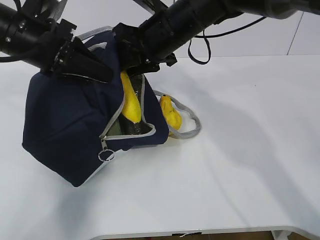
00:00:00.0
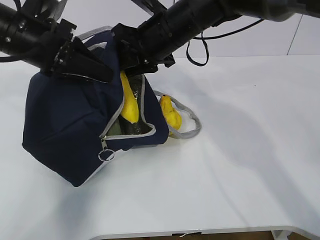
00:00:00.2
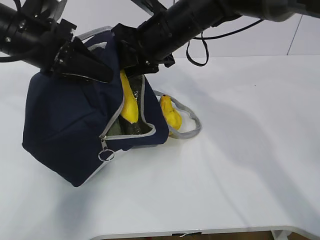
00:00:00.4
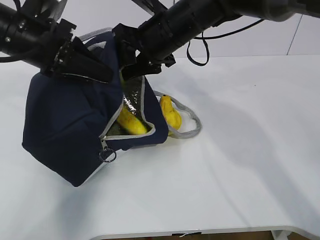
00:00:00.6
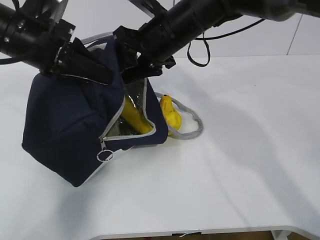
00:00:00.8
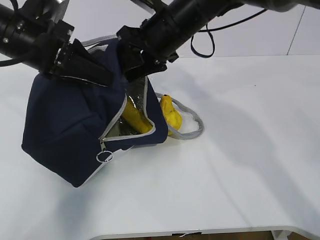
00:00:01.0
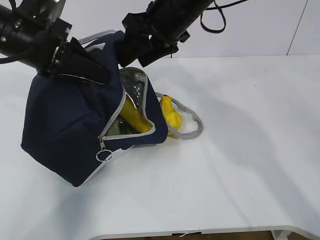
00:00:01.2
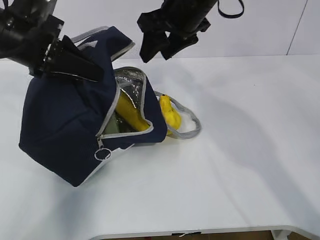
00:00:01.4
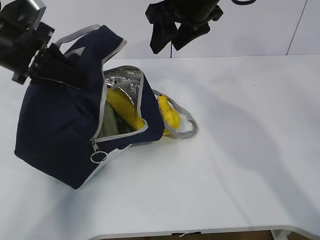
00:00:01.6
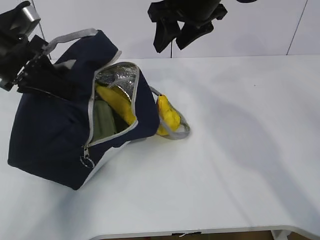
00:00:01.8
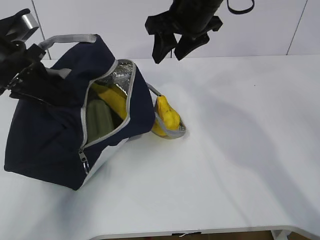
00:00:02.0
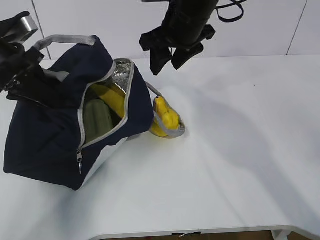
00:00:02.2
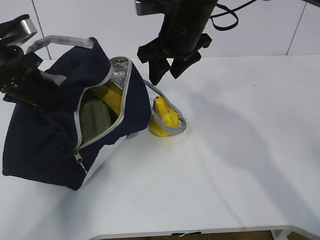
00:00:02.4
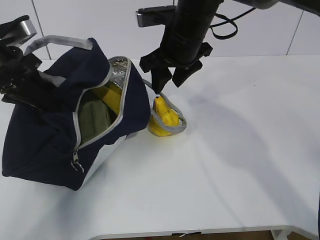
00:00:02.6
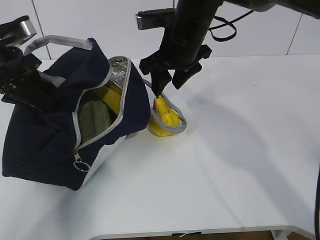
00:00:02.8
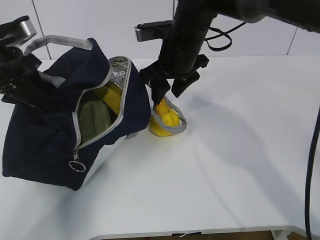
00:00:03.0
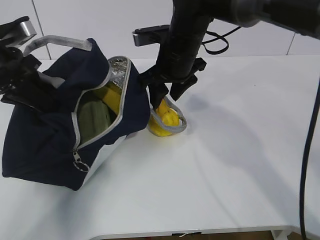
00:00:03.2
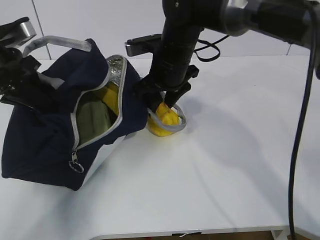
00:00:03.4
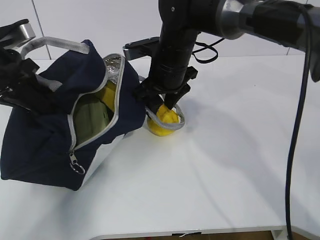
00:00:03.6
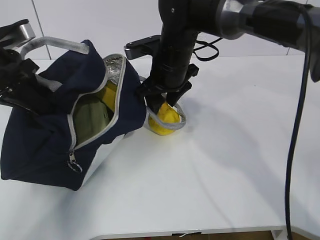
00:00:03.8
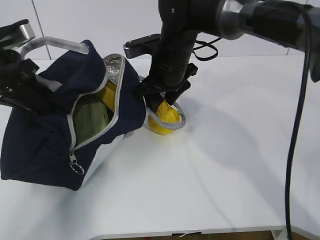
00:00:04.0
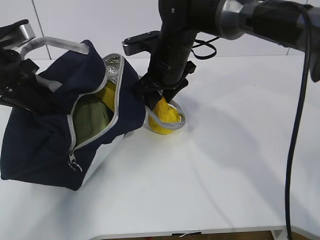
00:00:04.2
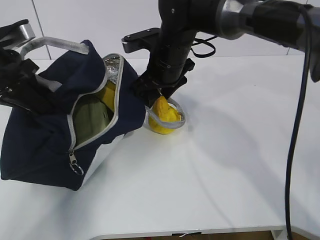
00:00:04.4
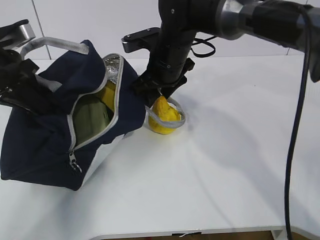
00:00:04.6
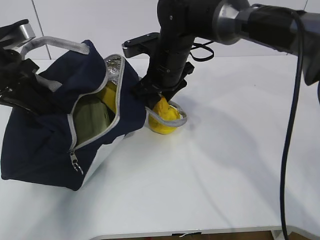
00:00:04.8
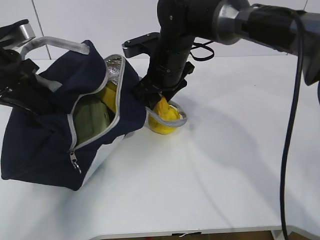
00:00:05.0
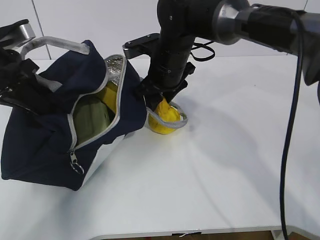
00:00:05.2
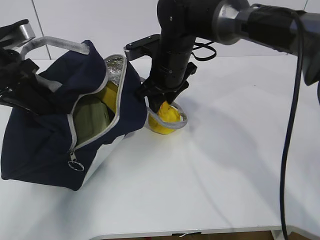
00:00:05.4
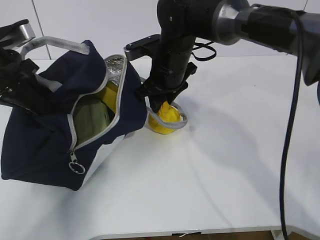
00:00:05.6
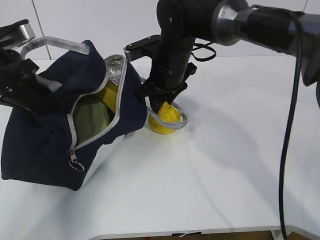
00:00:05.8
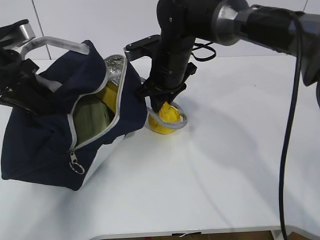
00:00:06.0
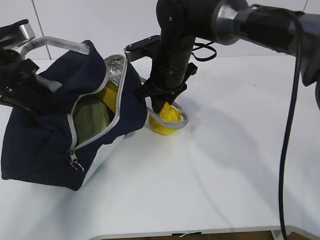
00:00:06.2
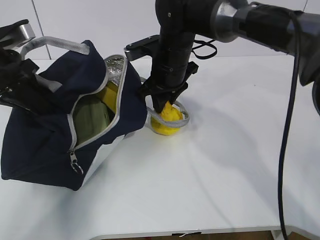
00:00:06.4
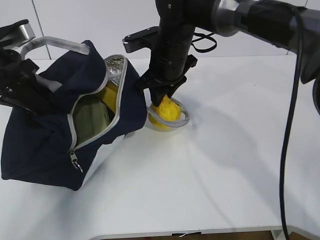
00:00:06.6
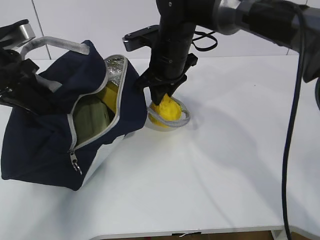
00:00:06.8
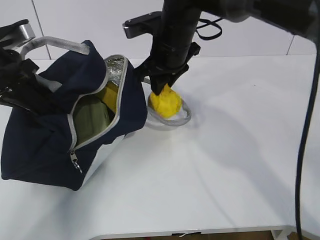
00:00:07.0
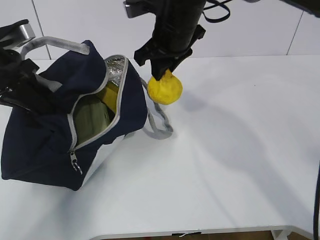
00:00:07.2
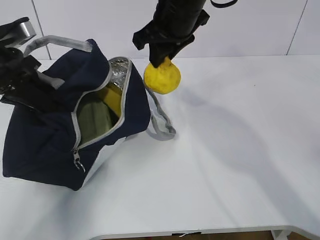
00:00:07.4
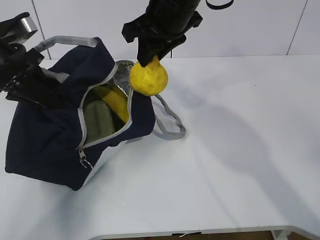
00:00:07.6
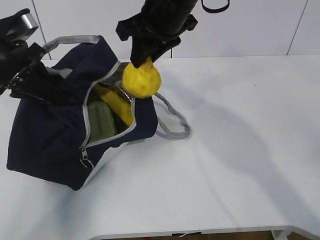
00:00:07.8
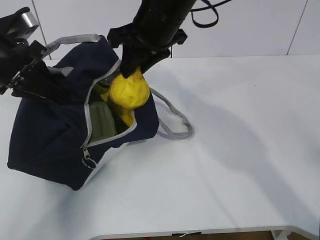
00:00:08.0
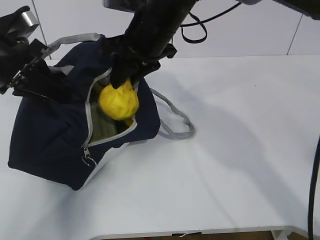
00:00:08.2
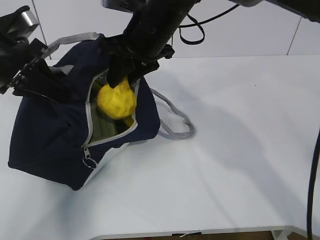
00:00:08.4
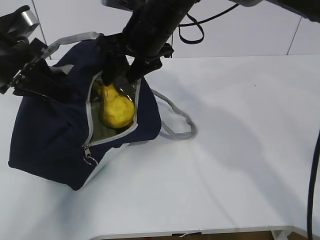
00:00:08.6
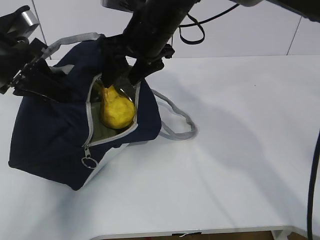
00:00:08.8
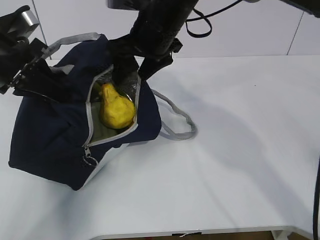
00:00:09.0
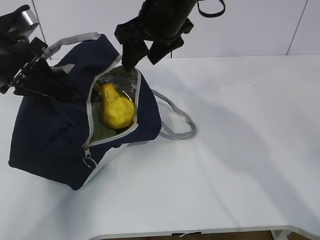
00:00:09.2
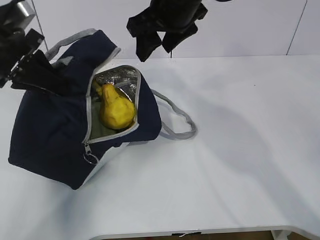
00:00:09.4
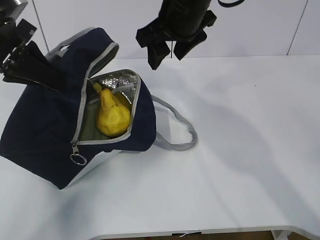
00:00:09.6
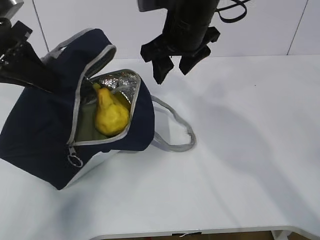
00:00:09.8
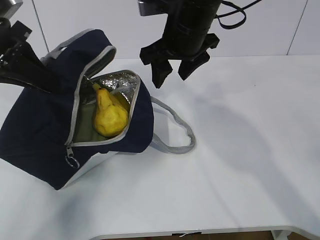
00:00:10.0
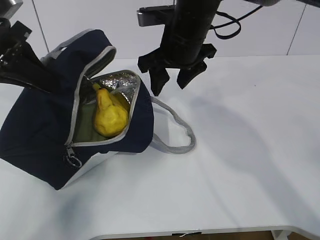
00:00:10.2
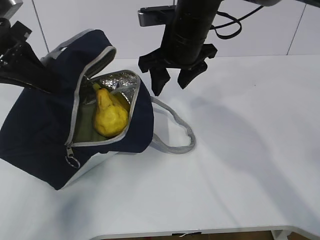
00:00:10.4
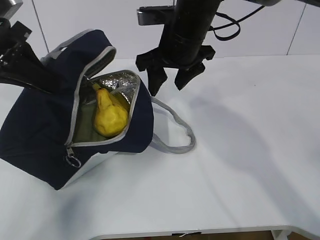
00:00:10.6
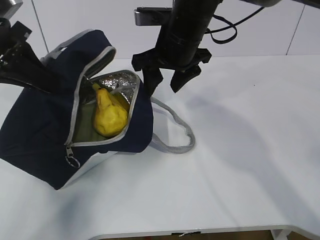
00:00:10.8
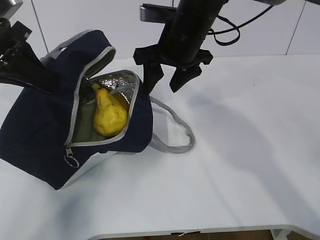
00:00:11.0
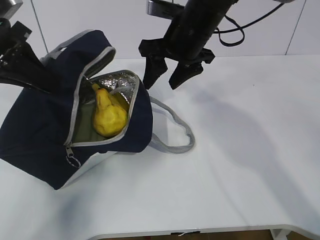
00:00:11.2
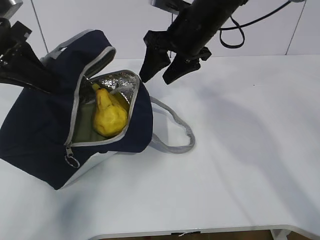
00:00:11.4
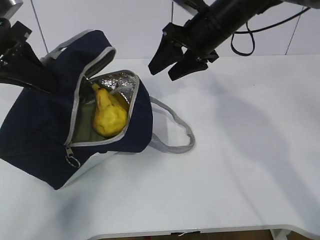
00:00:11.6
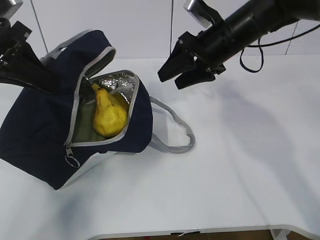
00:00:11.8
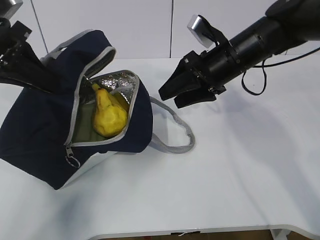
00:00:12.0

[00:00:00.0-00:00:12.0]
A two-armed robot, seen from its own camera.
Step, 00:00:01.2 to 00:00:05.6: Grasp the pear with the right gripper.
Step, 00:00:05.8 to 00:00:08.4: Place the pear into the package with the right gripper.
00:00:00.0 to 00:00:01.6: The right gripper heads upward, covering approximately 5 cm, and opens up.
00:00:01.6 to 00:00:03.0: The right gripper shifts approximately 10 cm downward.
00:00:03.0 to 00:00:06.0: There are only small adjustments of the grippers.
00:00:06.0 to 00:00:07.6: The right gripper goes some 10 cm upward.
00:00:07.6 to 00:00:09.0: The right gripper opens up.
00:00:10.4 to 00:00:12.0: The right gripper travels to the right by about 10 cm.

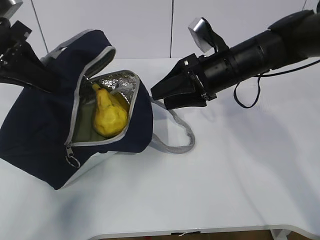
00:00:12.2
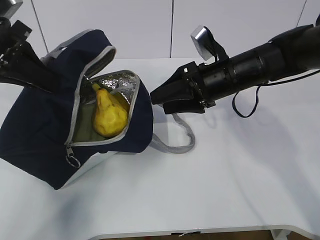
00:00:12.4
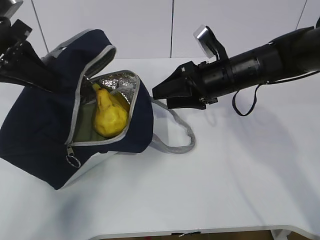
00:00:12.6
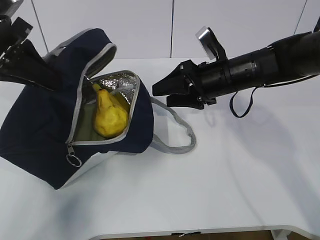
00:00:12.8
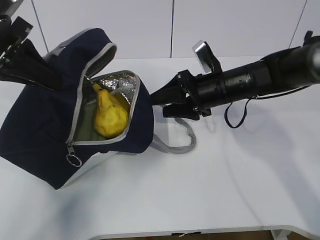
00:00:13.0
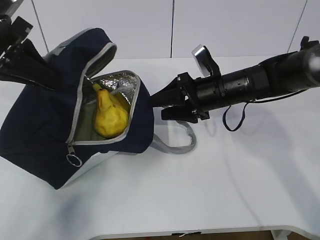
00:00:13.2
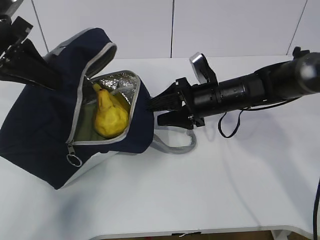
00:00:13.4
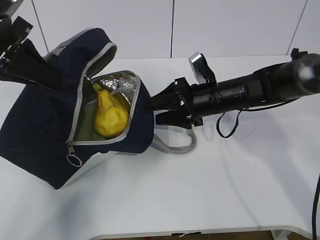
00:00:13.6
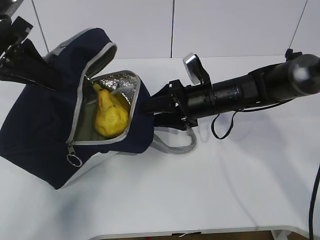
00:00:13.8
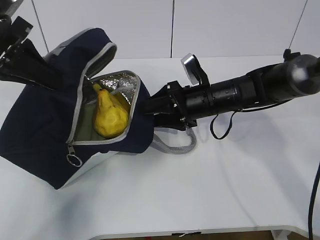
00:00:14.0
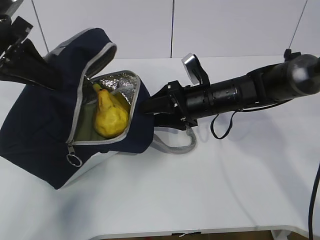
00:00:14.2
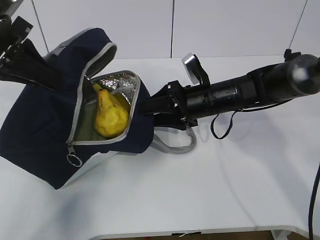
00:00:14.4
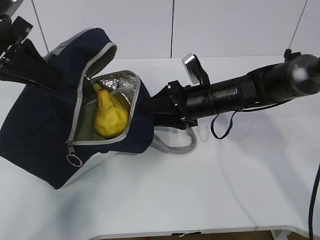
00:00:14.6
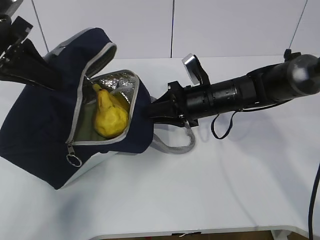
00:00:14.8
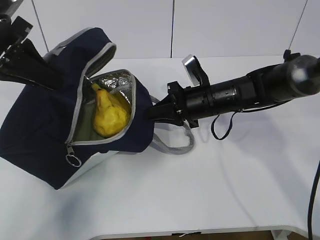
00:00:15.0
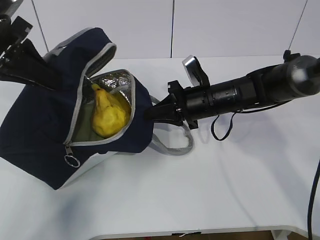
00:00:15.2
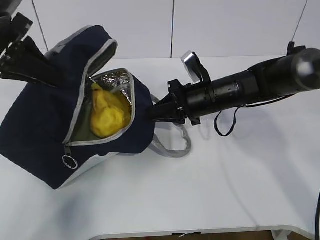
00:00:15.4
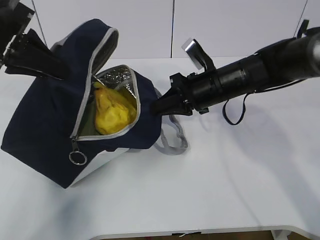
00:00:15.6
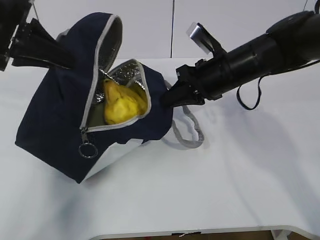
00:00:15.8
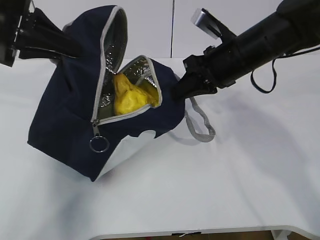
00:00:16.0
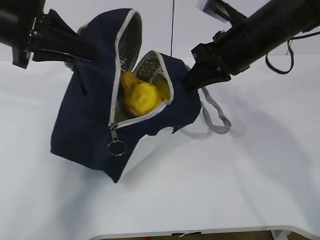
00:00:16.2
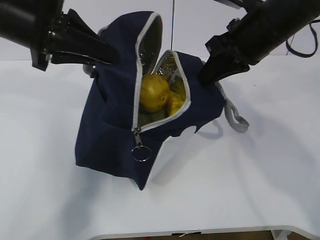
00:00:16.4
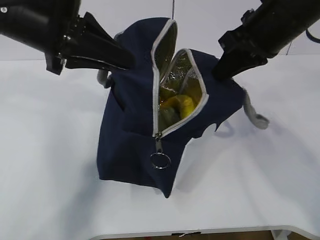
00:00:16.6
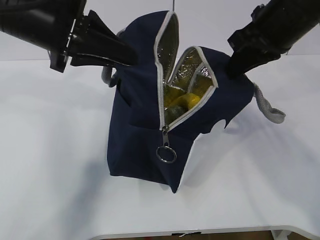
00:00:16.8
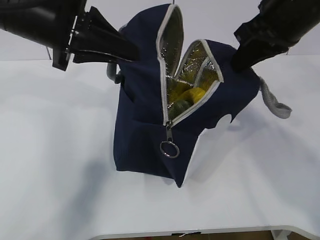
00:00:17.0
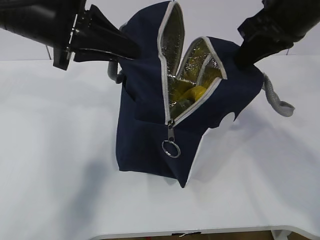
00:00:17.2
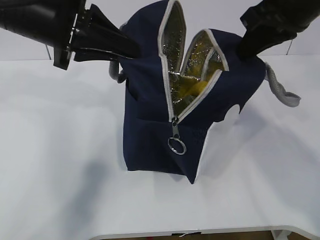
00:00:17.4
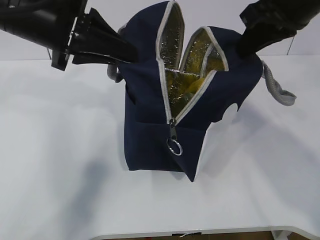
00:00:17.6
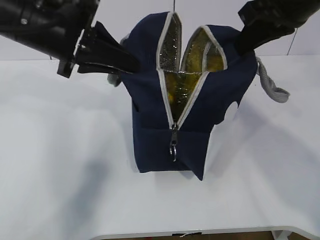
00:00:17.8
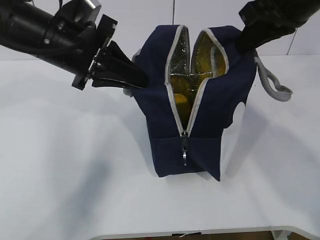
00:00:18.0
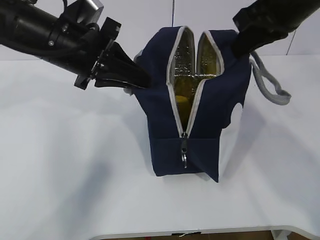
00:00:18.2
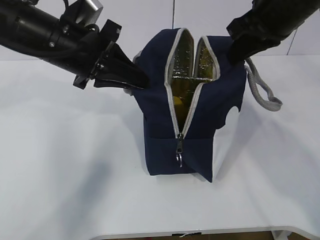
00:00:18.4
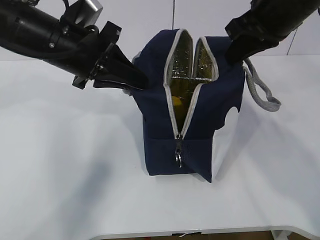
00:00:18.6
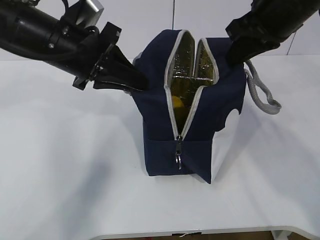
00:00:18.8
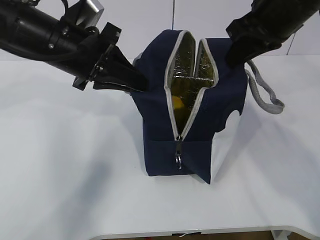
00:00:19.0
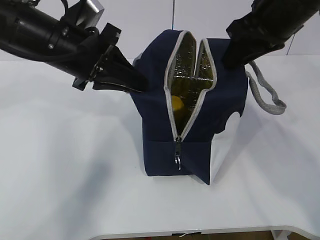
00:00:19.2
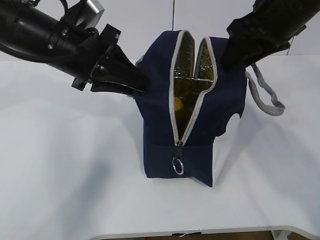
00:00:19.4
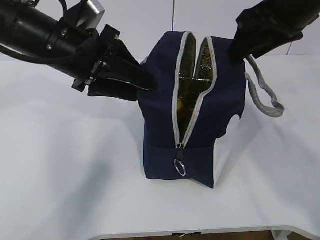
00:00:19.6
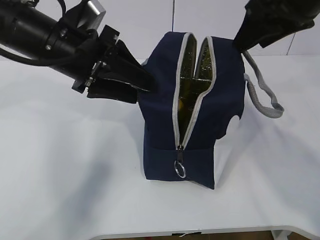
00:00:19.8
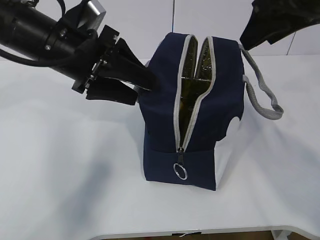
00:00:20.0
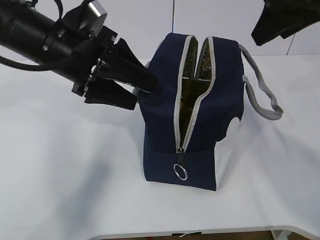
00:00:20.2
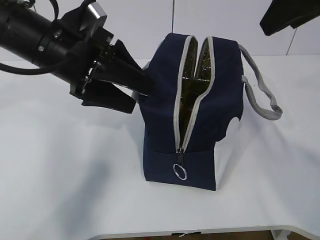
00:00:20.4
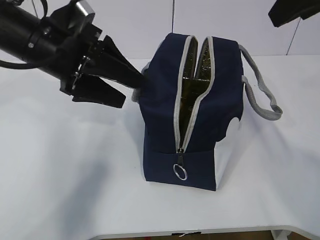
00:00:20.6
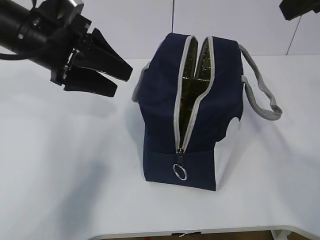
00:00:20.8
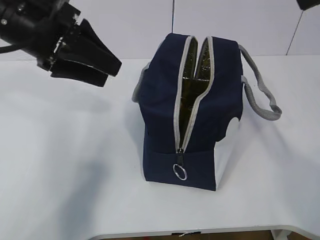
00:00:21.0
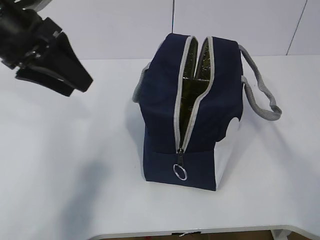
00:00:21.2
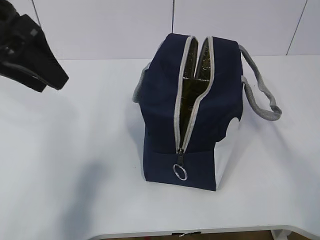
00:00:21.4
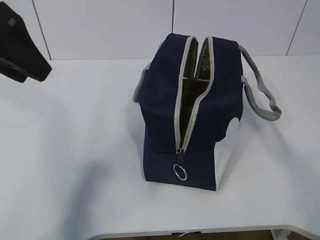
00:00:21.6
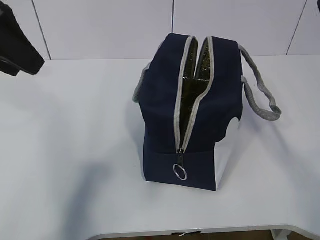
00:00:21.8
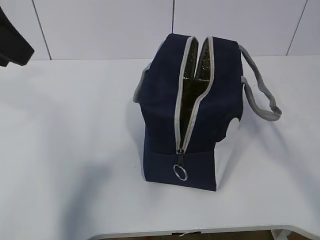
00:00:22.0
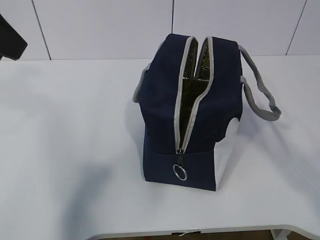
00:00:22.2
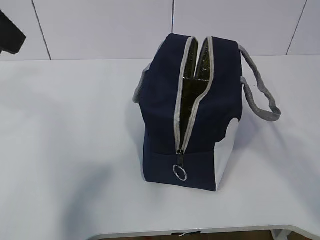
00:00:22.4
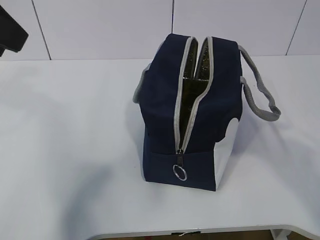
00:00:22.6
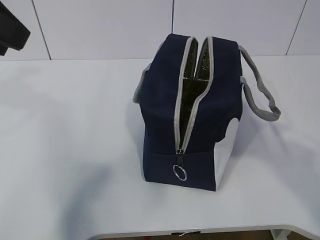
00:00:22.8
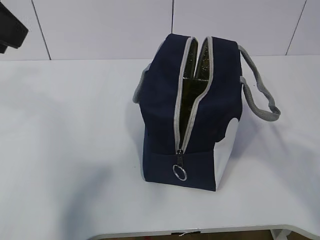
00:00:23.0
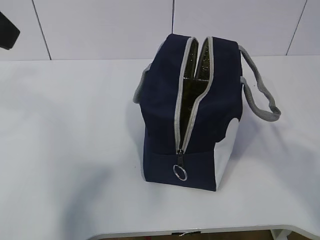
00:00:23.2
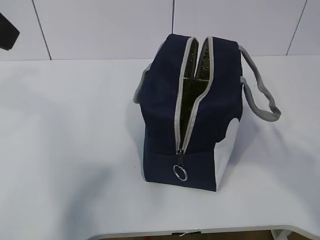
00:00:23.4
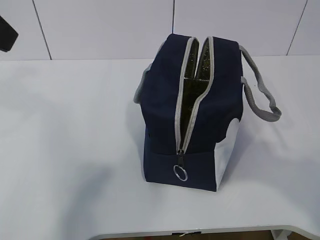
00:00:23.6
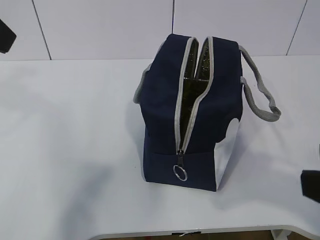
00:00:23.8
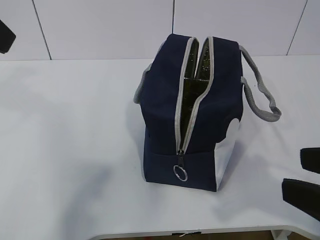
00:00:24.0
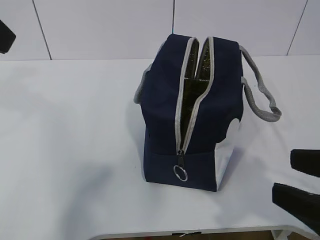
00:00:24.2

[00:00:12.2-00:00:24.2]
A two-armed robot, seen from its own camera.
00:00:12.2 to 00:00:13.8: The right gripper moves downward, roughly 10 cm.
00:00:13.8 to 00:00:15.2: The right gripper closes its fingers.
00:00:15.2 to 00:00:16.6: The right gripper shifts about 20 cm upward. Meanwhile the left gripper heads to the right, covering some 10 cm.
00:00:16.6 to 00:00:18.2: The left gripper changes place by about 5 cm.
00:00:18.2 to 00:00:19.8: The left gripper opens. The right gripper opens its fingers.
00:00:19.8 to 00:00:21.2: The left gripper moves to the left, roughly 5 cm, while the right gripper is displaced backward and upward by approximately 15 cm.
00:00:21.2 to 00:00:22.6: The right gripper is displaced backward and downward by about 15 cm. The left gripper moves upward and backward, approximately 10 cm.
00:00:22.6 to 00:00:24.2: The right gripper is displaced downward by roughly 15 cm.
